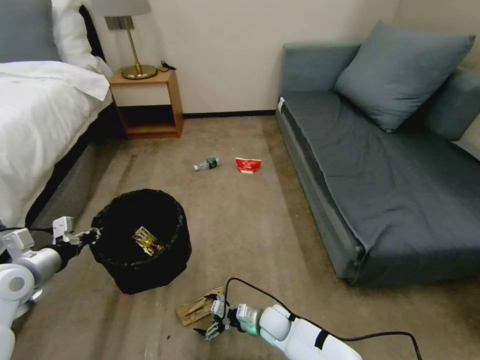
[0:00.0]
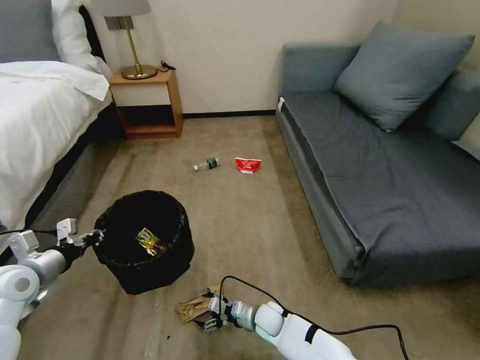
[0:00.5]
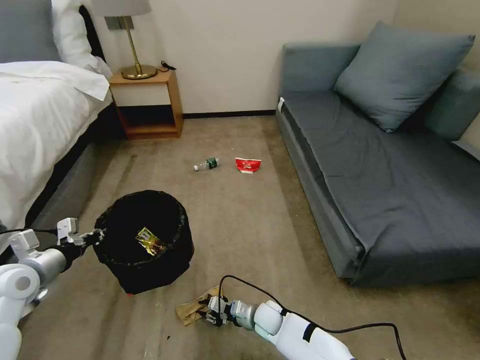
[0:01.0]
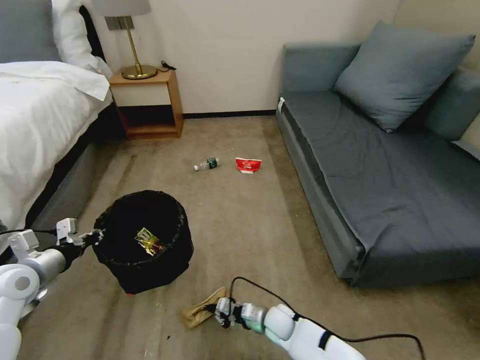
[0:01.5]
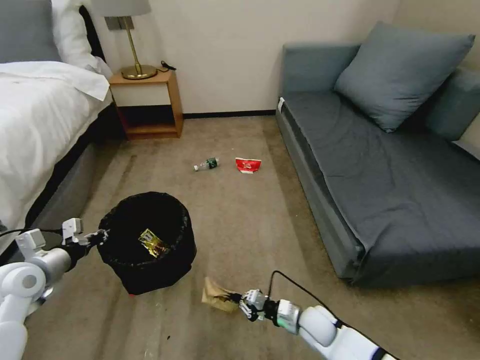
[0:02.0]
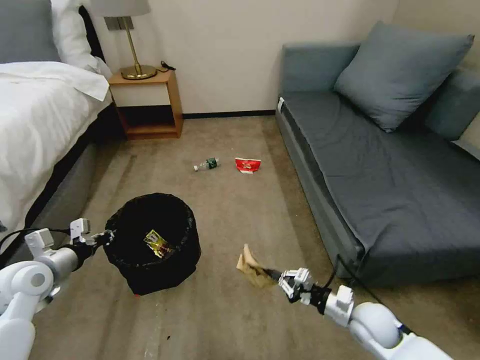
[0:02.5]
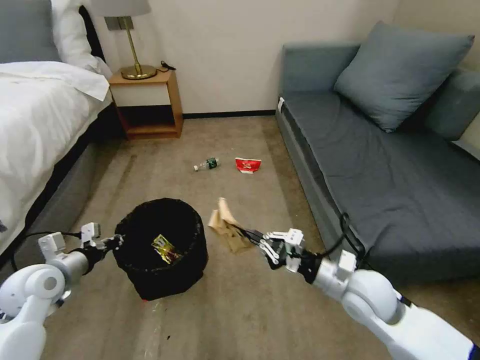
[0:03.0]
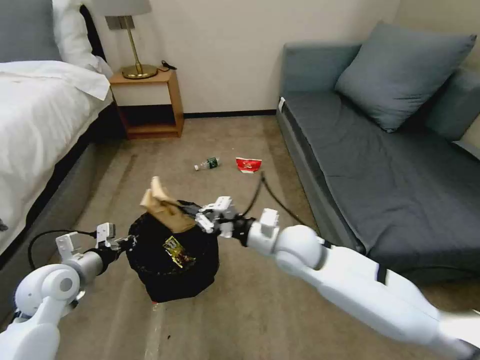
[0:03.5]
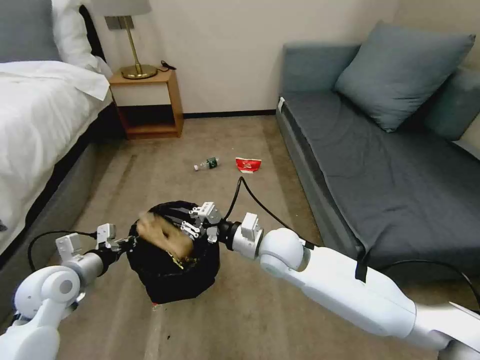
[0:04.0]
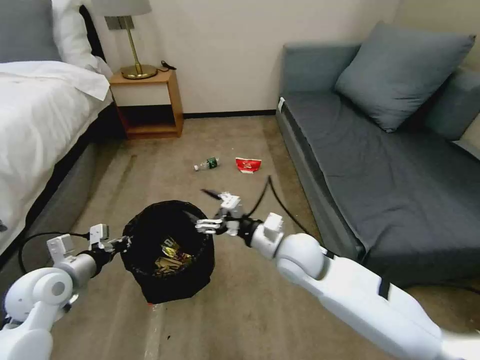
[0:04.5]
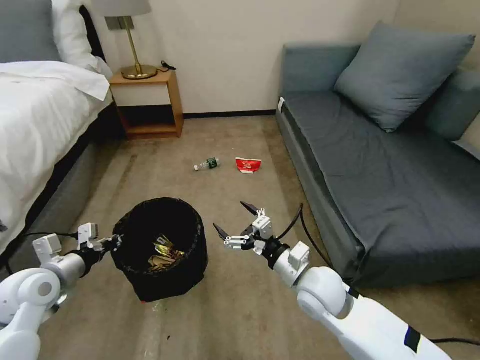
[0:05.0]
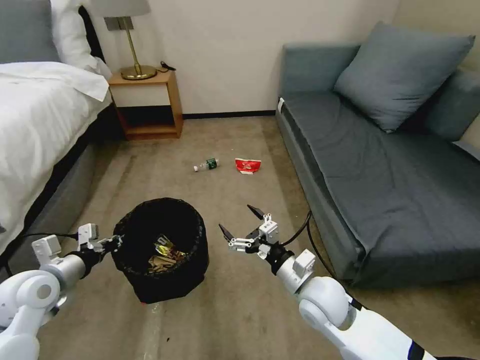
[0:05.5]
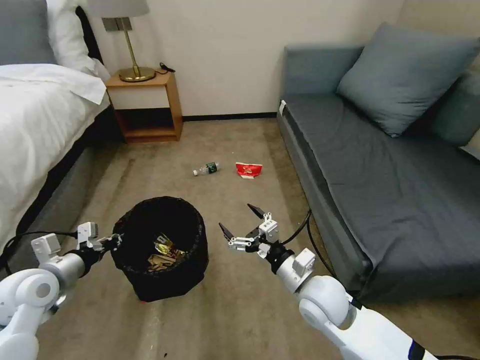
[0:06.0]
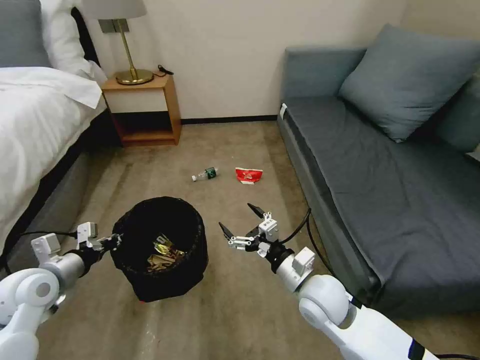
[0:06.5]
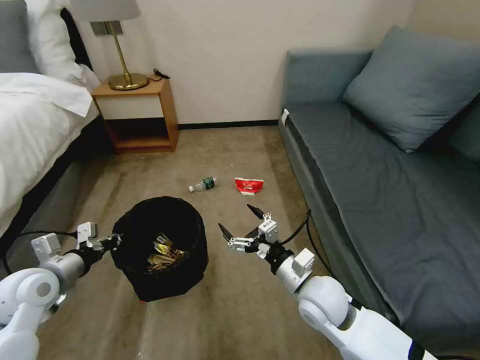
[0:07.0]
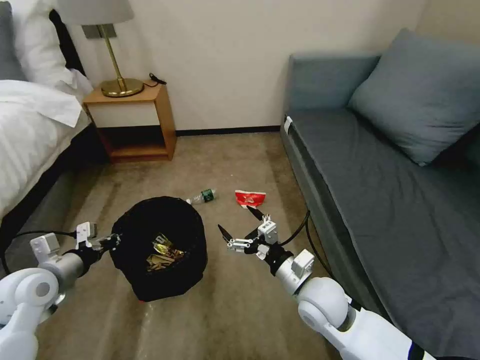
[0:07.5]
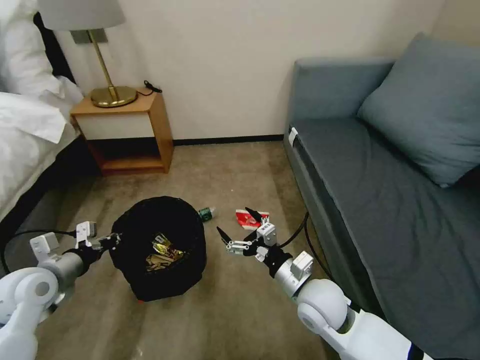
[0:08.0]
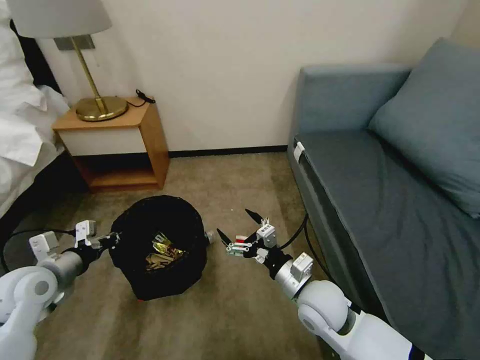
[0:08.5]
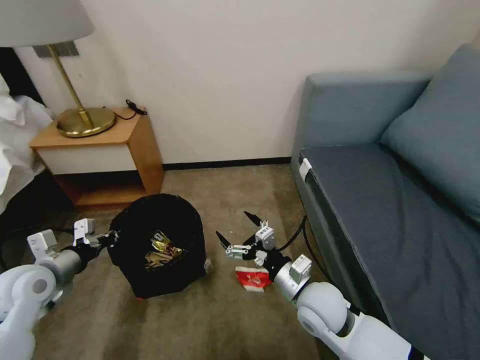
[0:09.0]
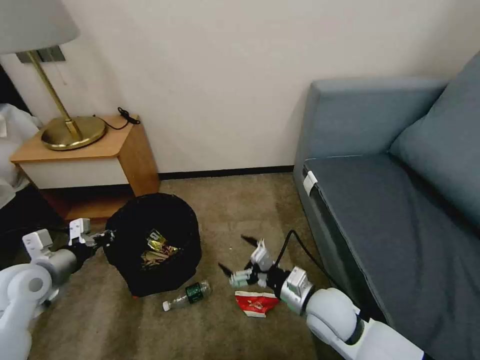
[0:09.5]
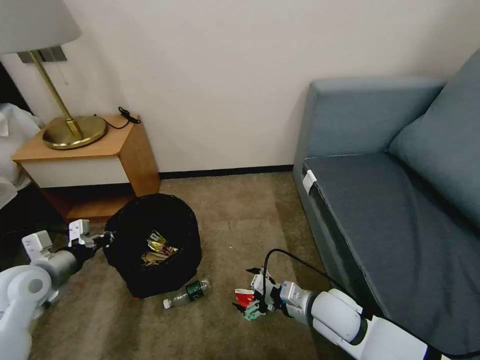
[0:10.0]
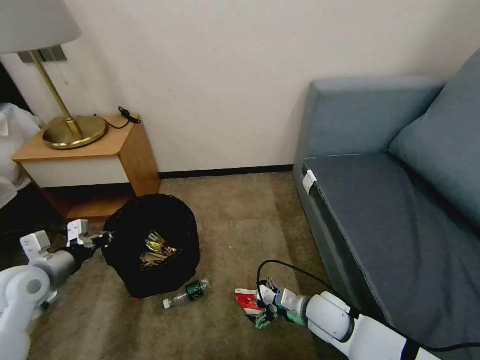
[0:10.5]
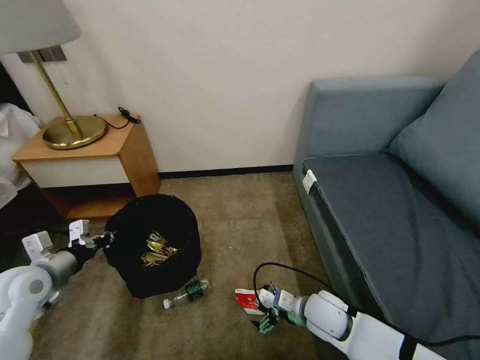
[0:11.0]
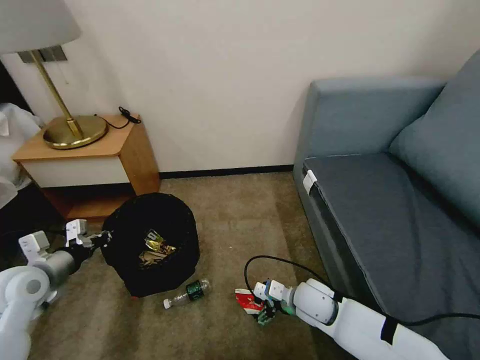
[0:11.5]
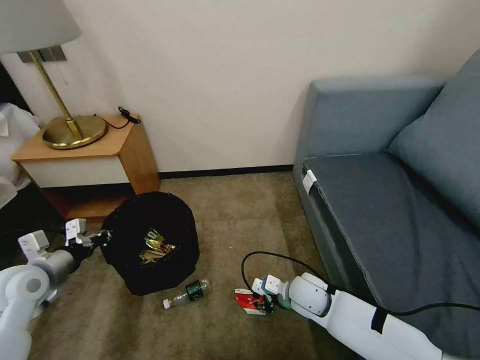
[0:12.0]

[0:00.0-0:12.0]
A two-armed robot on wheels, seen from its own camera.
Task of the whole recording: Pick up the trash bin, then pick up the garbage on the floor and place it into the trash bin.
0:00.0 to 0:02.0: The right gripper goes about 10 cm to the right and upward, and closes its fingers.
0:02.0 to 0:04.0: The left gripper is displaced to the right by some 5 cm; the right gripper travels upward and to the left by approximately 25 cm.
0:04.0 to 0:06.0: The right gripper shifts roughly 15 cm backward, to the right and downward, and opens.
0:08.0 to 0:10.0: The right gripper ends up about 5 cm from where it was.
0:10.0 to 0:12.0: The right gripper is displaced forward and downward by roughly 10 cm, and closes.

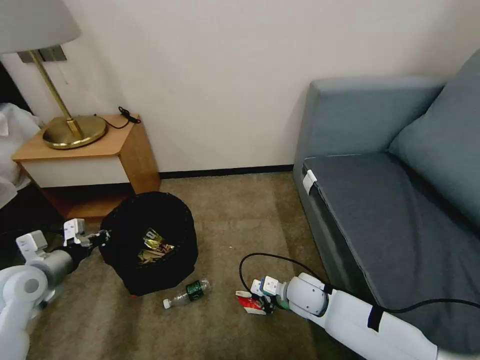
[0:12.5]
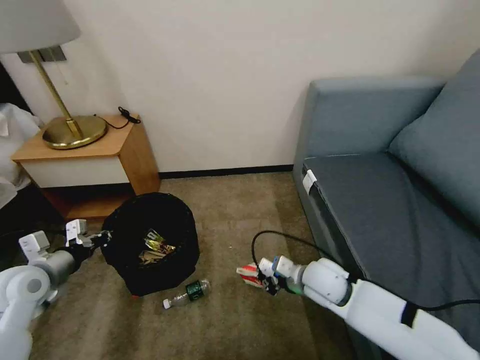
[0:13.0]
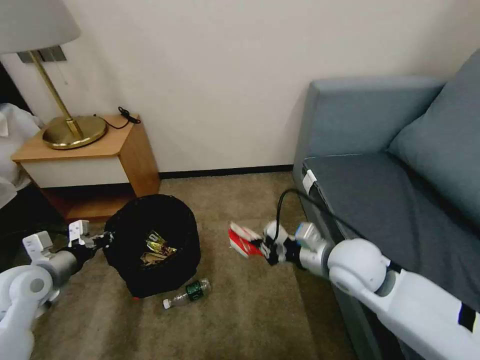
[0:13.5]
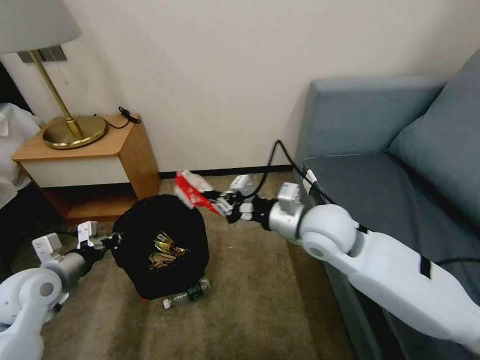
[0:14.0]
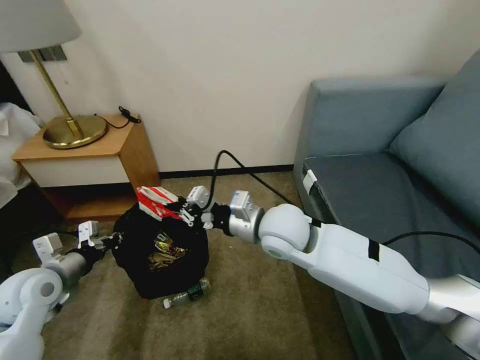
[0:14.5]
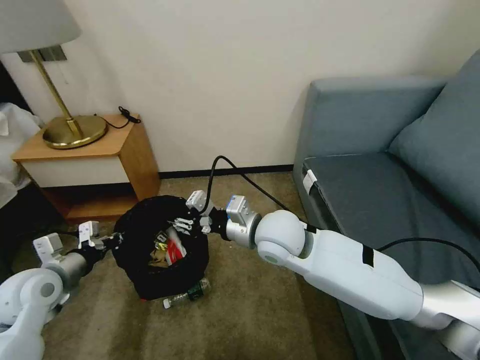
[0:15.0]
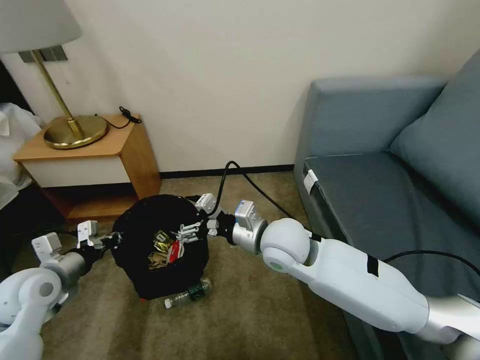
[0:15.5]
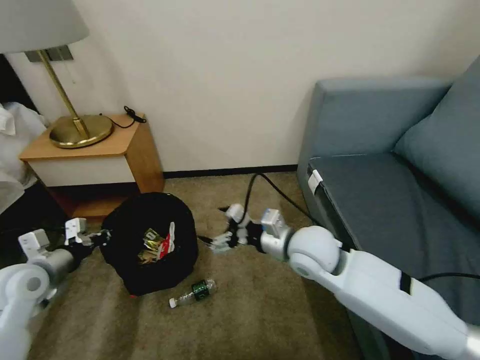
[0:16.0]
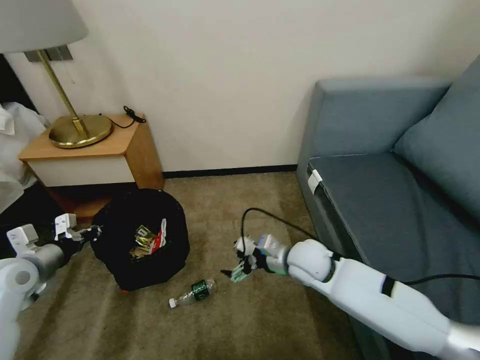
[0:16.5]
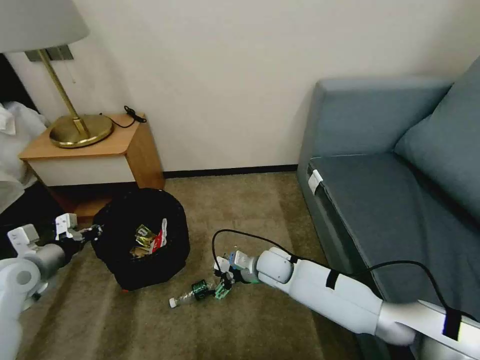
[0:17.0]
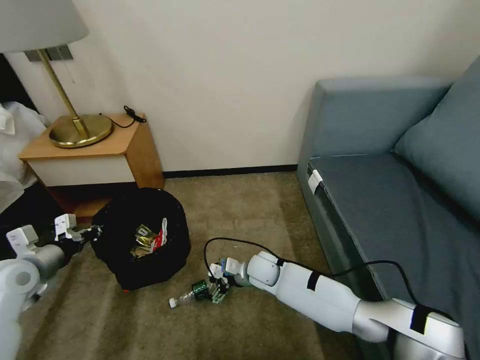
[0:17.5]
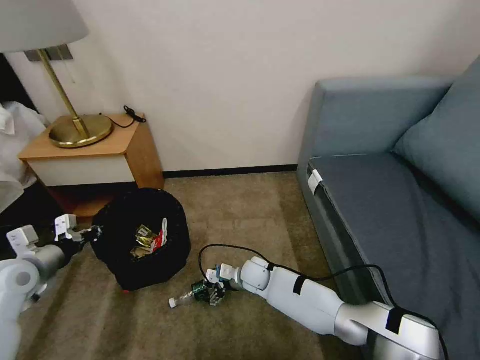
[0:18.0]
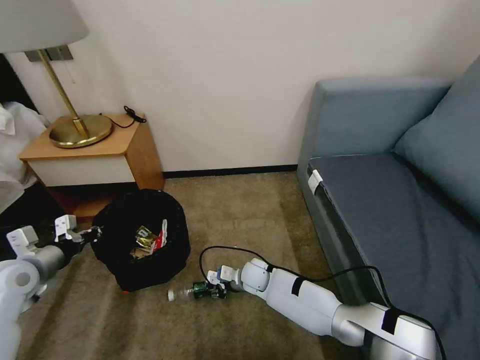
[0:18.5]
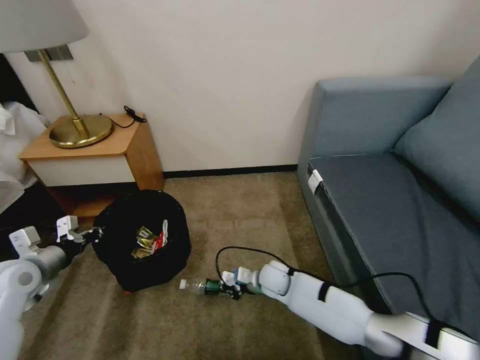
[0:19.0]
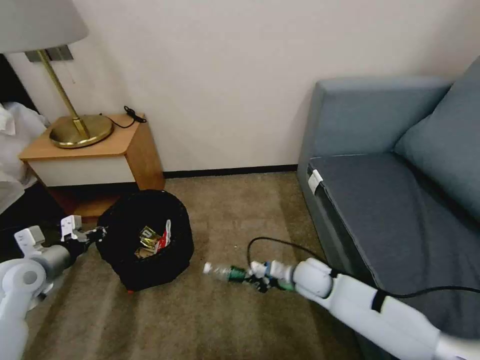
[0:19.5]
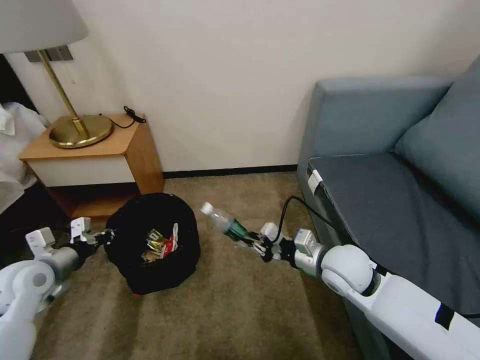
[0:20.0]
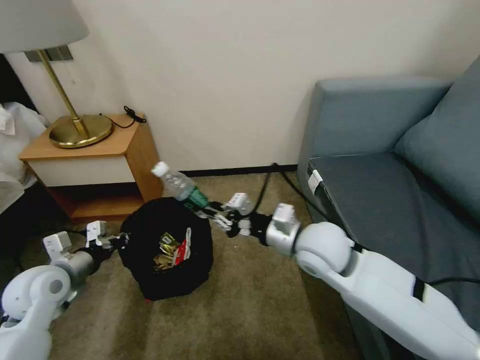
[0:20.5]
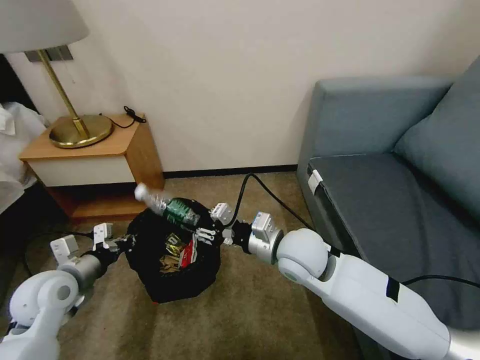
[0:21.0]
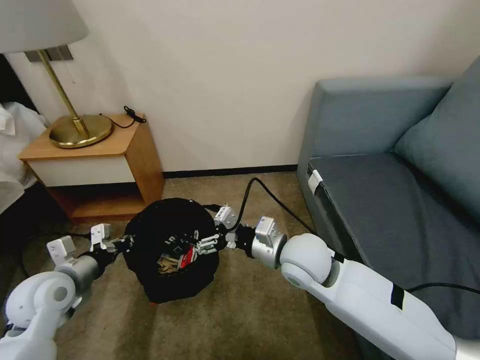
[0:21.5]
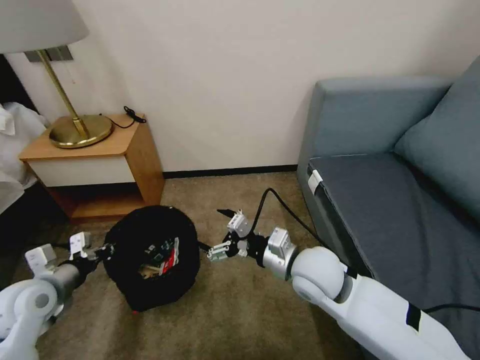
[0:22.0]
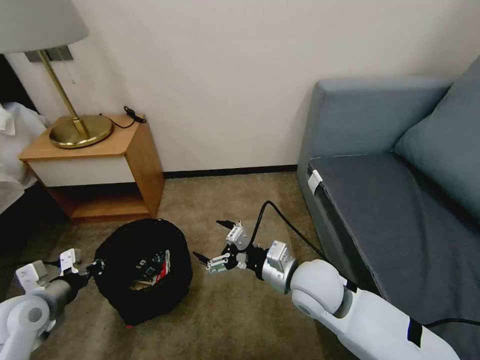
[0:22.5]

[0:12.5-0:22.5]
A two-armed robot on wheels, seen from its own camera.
Task of the whole recording: Pick up the trash bin, then pick up the garbage on the floor and place it into the trash bin.
0:12.5 to 0:14.5: The right gripper is displaced upward by approximately 25 cm.
0:14.5 to 0:16.5: The right gripper moves downward and to the right, approximately 15 cm, and opens its fingers. The left gripper changes place by approximately 5 cm.
0:16.5 to 0:18.5: The right gripper goes approximately 20 cm downward and to the left, and closes up.
0:18.5 to 0:20.5: The left gripper moves to the right, about 5 cm. The right gripper travels upward by some 30 cm.
0:20.5 to 0:22.5: The right gripper shifts approximately 10 cm downward and backward, and opens its fingers, while the left gripper shifts by roughly 5 cm.

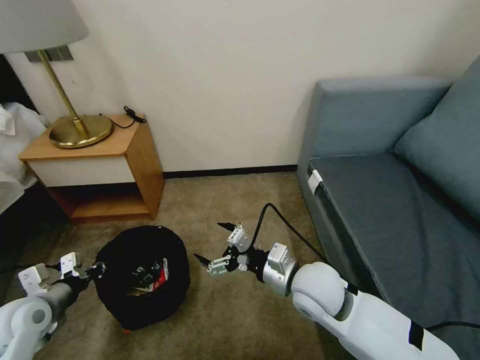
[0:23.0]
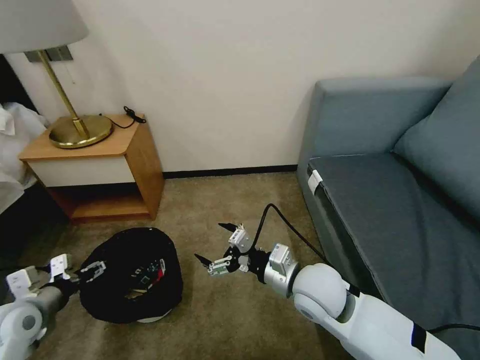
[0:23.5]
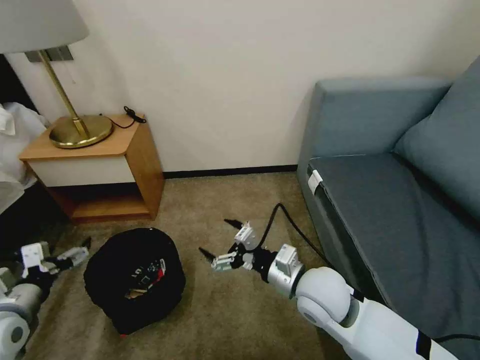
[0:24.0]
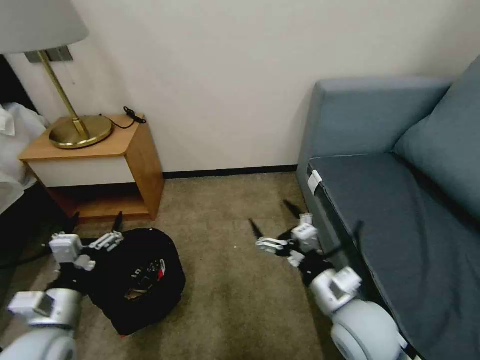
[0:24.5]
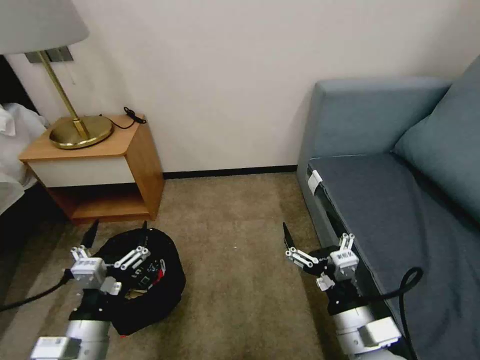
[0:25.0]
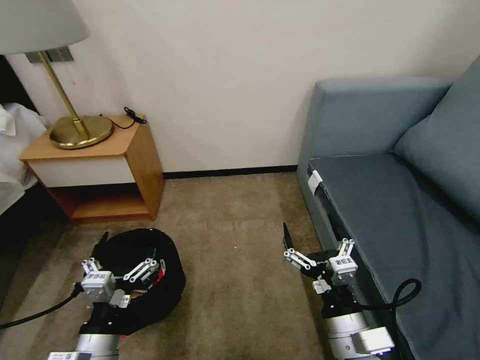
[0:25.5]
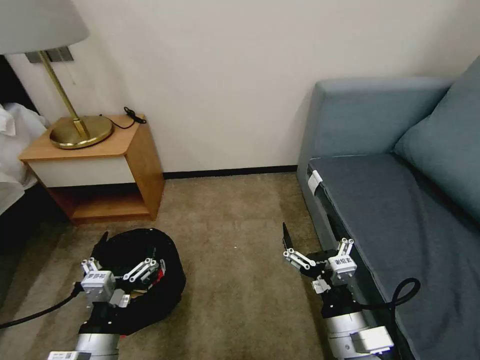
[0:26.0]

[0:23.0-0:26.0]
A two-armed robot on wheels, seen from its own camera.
Task of the whole recording: Pick up the trash bin, then pick up the garbage on the floor and place it into the trash bin.
0:23.0 to 0:24.5: The right gripper heads backward and to the right, covering approximately 10 cm. The left gripper is displaced to the right and backward by roughly 10 cm, and opens up.
0:24.5 to 0:26.0: The right gripper moves backward, some 5 cm, while the left gripper moves to the right and backward, approximately 10 cm.
